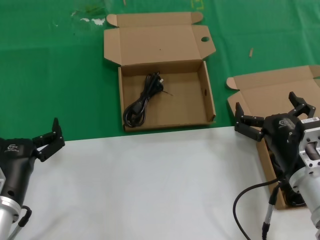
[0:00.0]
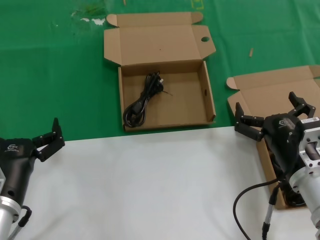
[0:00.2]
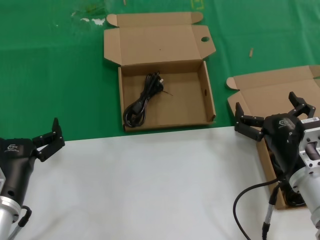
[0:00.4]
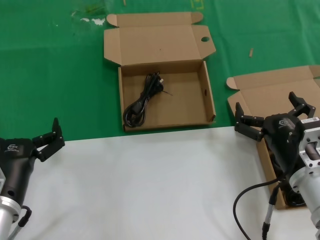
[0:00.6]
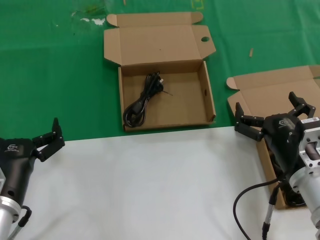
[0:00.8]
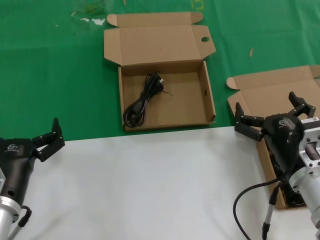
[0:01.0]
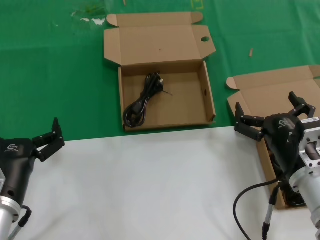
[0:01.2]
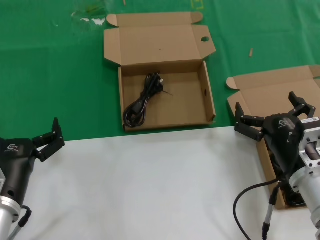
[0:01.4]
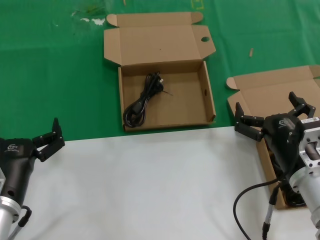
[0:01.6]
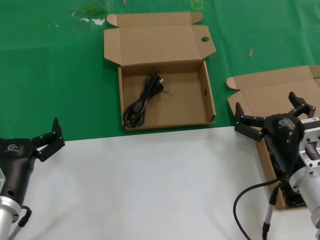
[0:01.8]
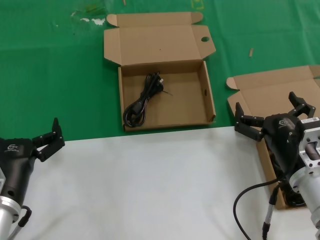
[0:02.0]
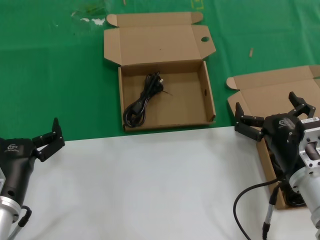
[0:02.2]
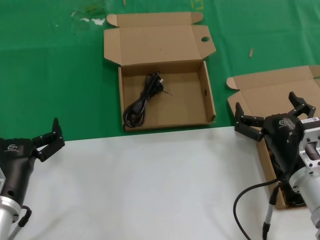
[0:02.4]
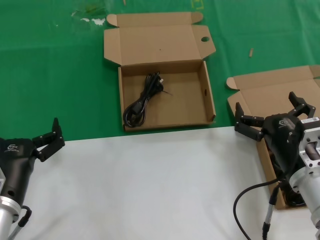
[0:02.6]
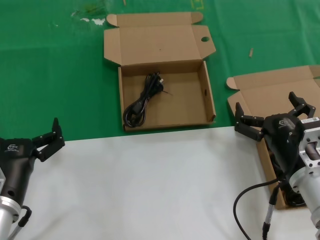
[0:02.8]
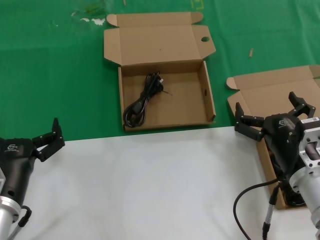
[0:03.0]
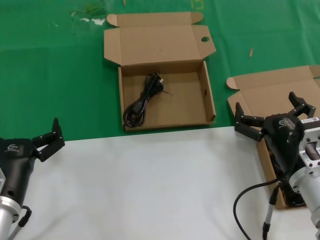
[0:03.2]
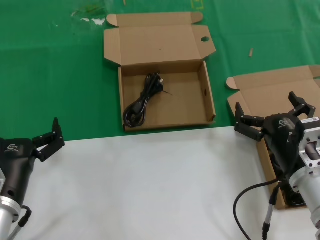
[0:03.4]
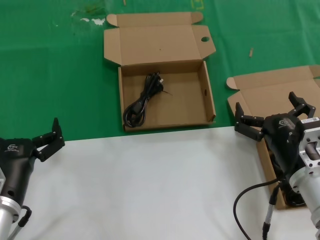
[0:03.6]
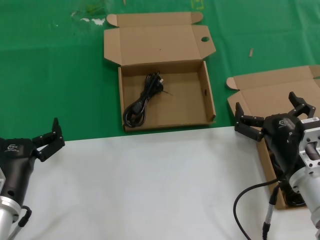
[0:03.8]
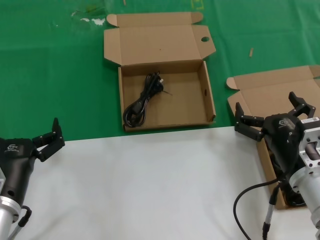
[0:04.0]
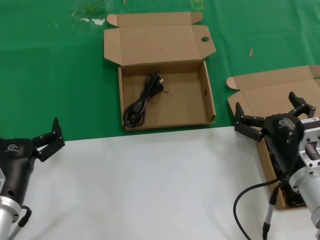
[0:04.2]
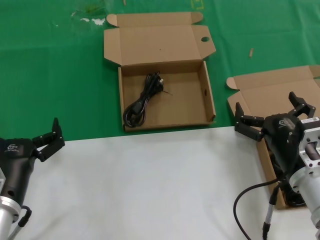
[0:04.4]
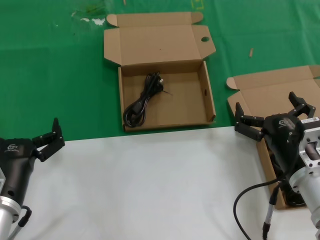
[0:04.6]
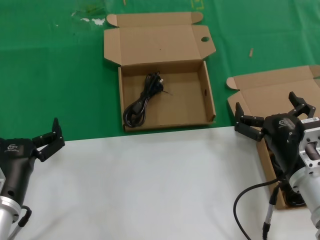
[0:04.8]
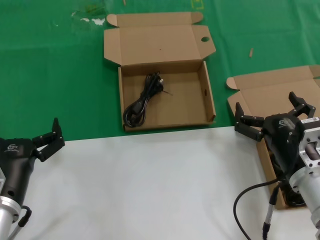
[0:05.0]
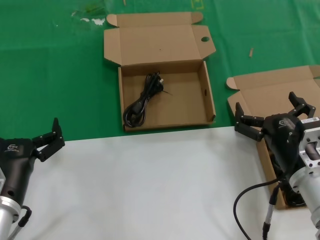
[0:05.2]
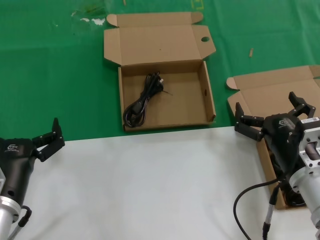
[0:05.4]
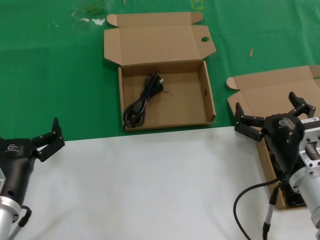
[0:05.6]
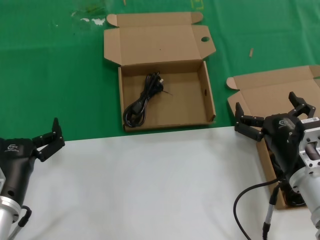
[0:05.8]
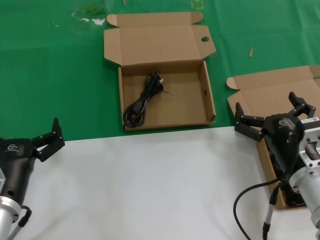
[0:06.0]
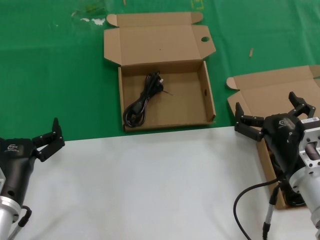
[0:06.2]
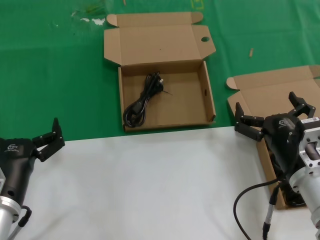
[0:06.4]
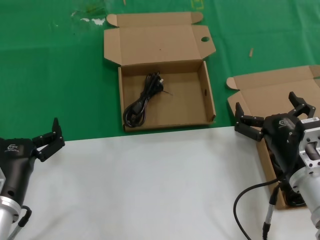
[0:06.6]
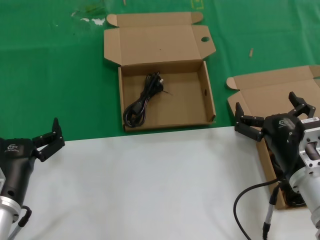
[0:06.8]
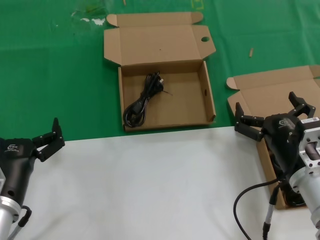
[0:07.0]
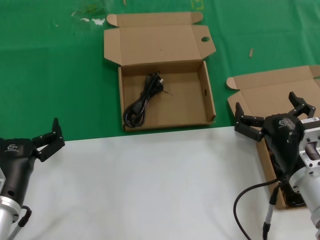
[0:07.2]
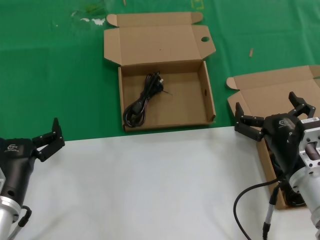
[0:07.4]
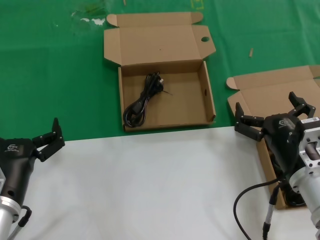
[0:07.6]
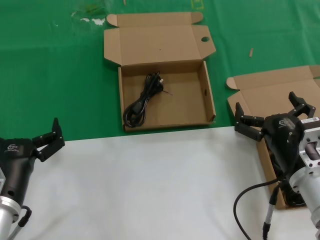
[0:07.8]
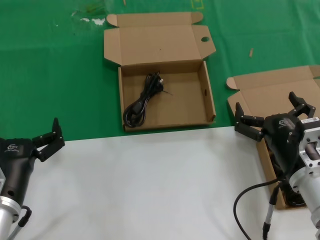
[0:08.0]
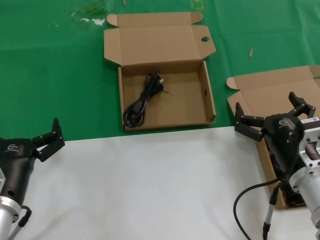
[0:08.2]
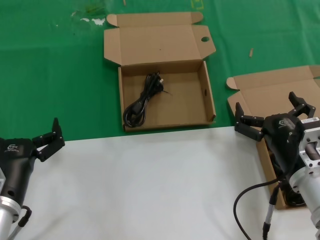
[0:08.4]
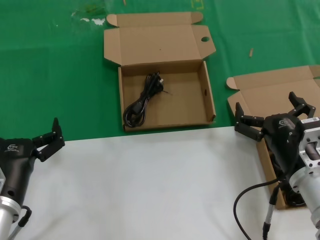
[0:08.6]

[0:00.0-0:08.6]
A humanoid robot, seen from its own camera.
Task of the whole recording: take the parts from the box containing them and put them into an empty box.
0:00.0 to 0:08.6: The two hands keep their place.
